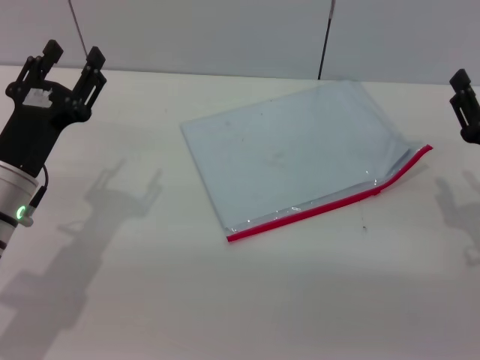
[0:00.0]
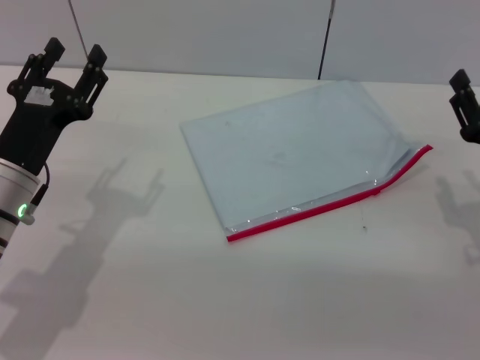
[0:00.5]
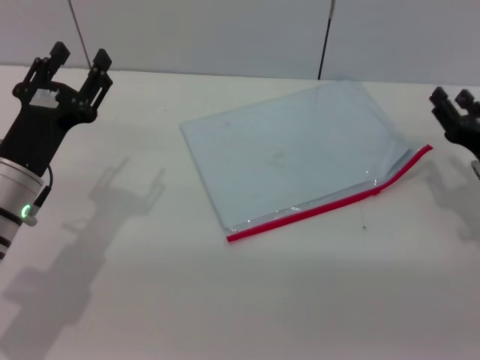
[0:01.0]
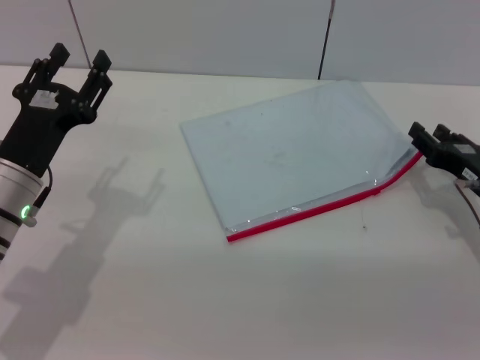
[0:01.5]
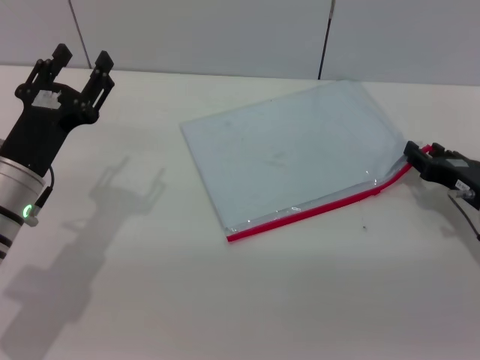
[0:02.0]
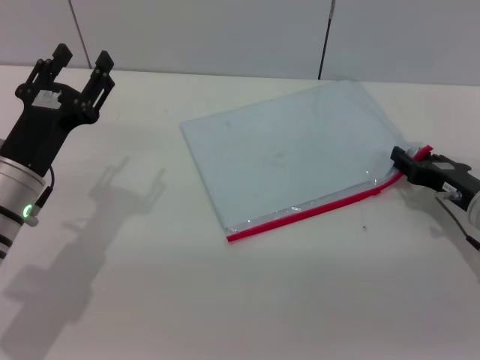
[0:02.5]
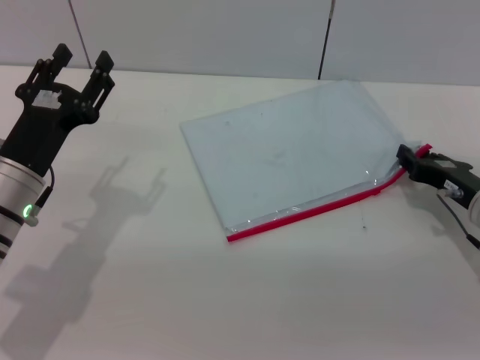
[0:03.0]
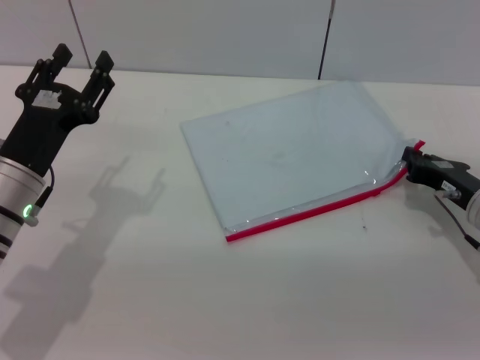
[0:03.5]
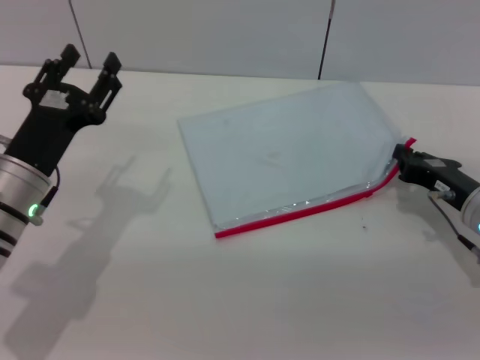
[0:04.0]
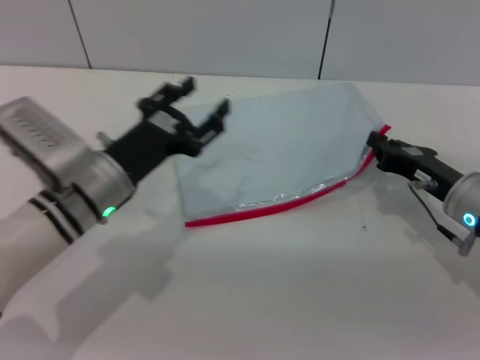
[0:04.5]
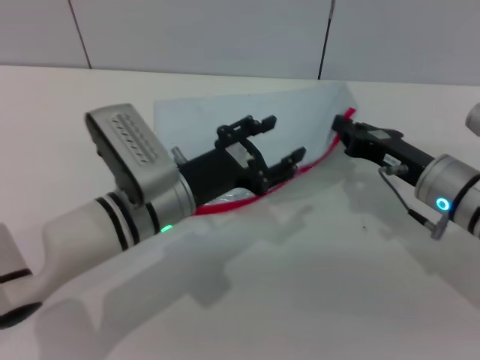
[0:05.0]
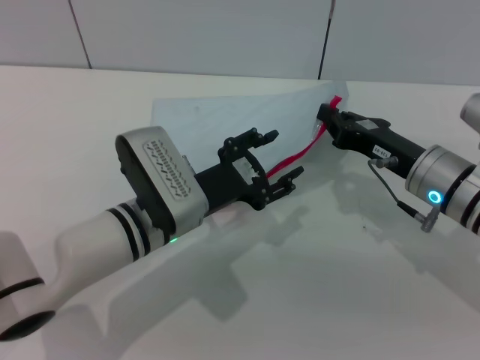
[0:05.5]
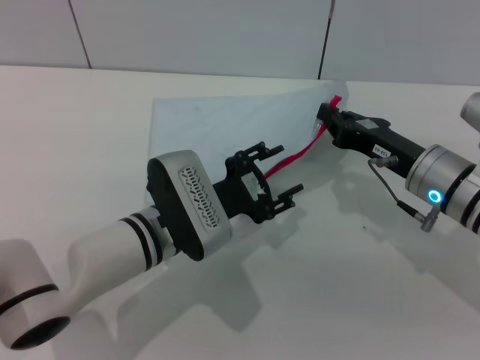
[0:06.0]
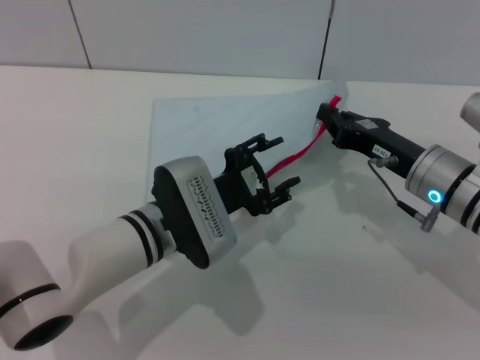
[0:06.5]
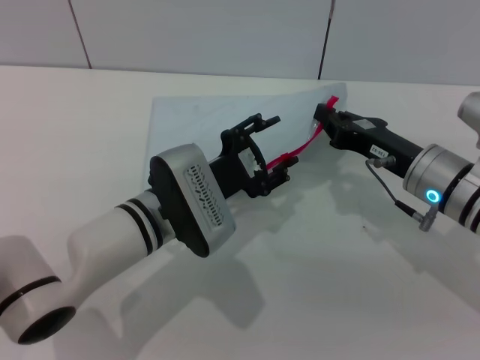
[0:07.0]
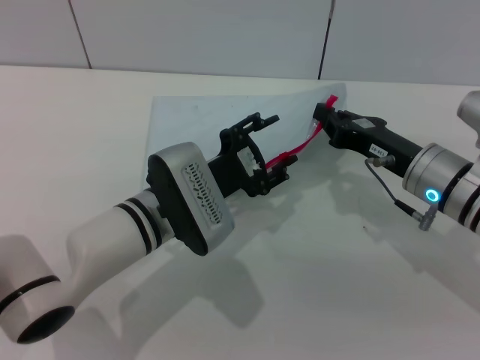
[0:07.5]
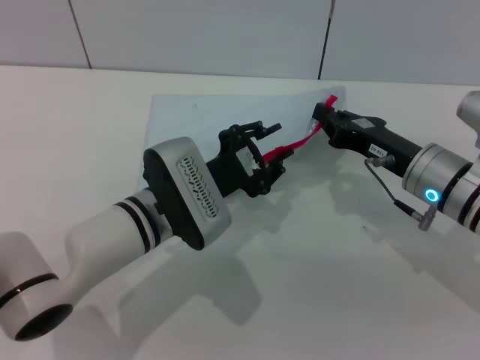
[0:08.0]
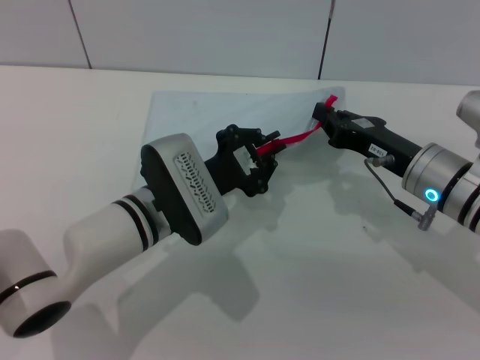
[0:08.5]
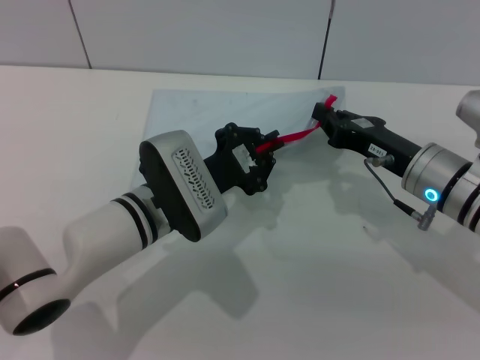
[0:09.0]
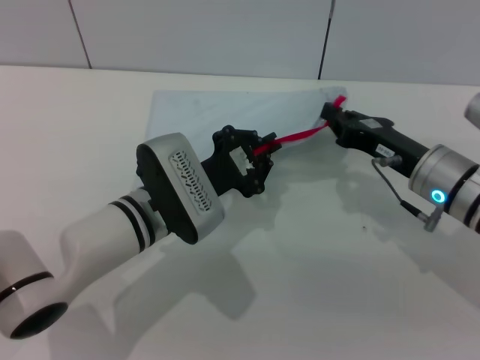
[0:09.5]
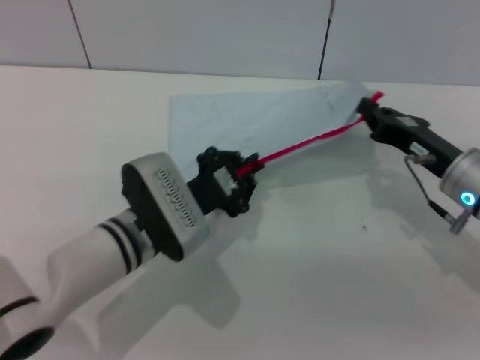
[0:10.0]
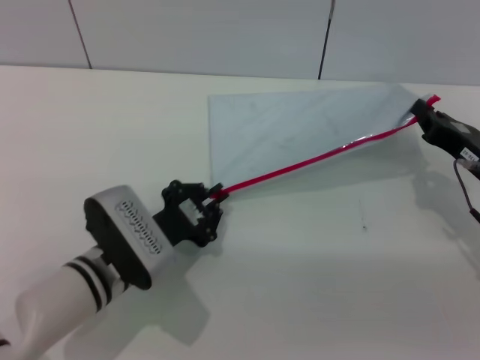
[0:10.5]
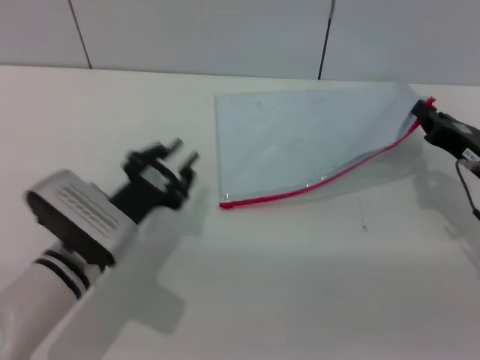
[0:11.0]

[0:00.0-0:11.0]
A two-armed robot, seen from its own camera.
Step, 0:00.0 to 0:05.5: Pick up the transparent plastic bag with the right gripper.
Step, 0:06.0 to 0:10.5: Pulling up the zipper on the transparent plastic bag with the left gripper to close it.
0:00.0 to 0:02.0: The right gripper moves roughly 5 cm.
0:02.0 to 0:03.5: The right gripper closes its fingers.
0:03.5 to 0:05.5: The left gripper moves to the right, roughly 15 cm; the right gripper travels to the left by approximately 5 cm.
0:07.5 to 0:09.0: The left gripper closes up.
0:09.0 to 0:11.0: The right gripper heads to the right, covering some 10 cm. The left gripper goes roughly 5 cm to the left.

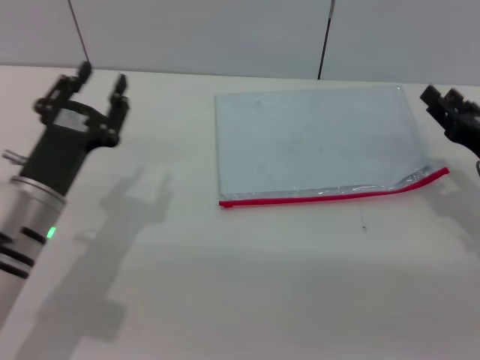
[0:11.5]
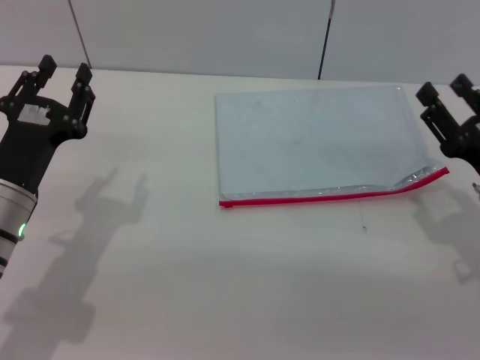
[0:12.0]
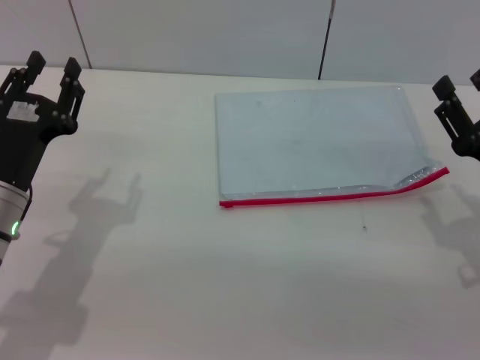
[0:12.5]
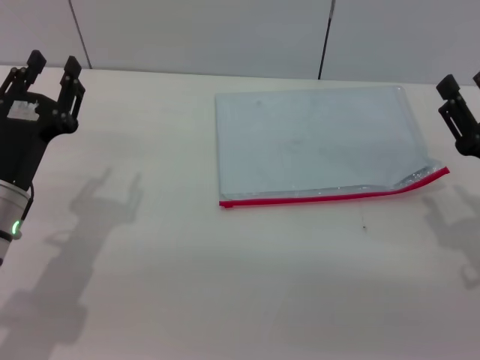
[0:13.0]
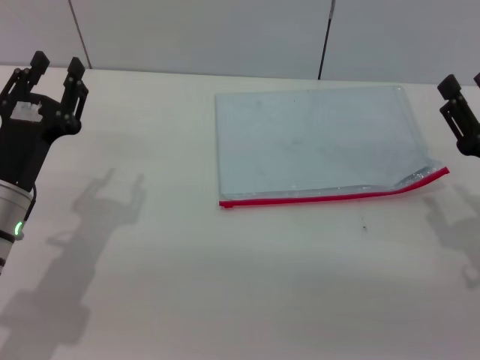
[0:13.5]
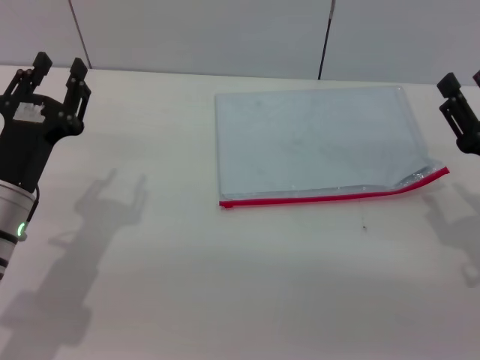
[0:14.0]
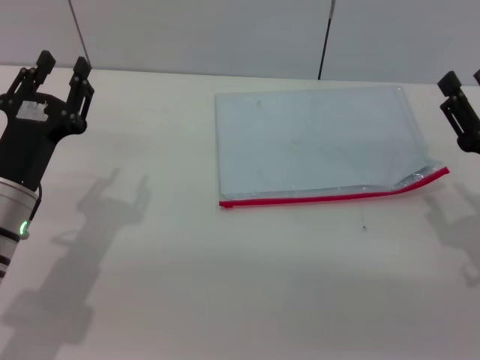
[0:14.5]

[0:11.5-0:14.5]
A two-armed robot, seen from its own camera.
0:11.5 to 0:13.0: The right gripper moves approximately 5 cm.
0:13.0 to 0:14.5: Neither gripper changes place.

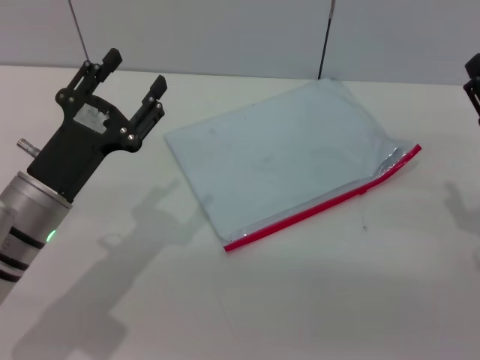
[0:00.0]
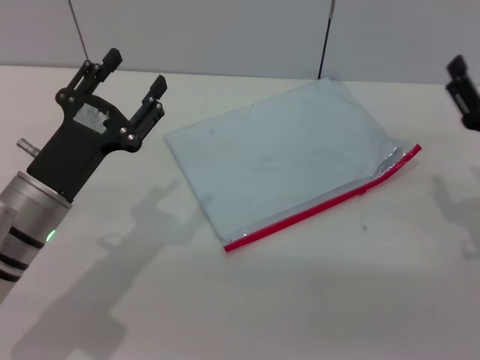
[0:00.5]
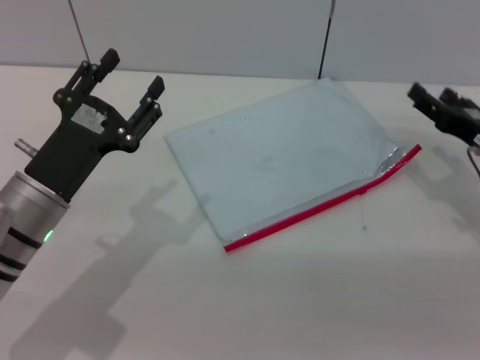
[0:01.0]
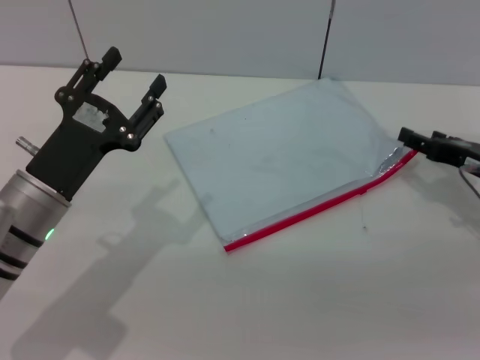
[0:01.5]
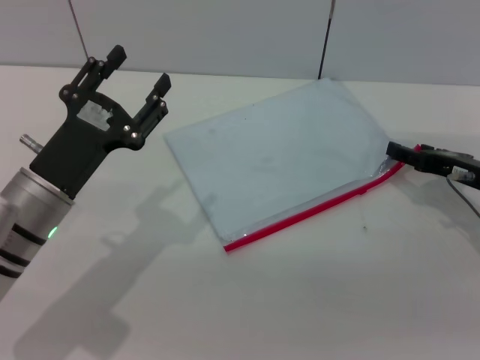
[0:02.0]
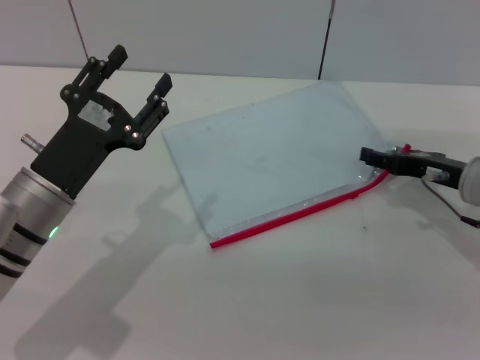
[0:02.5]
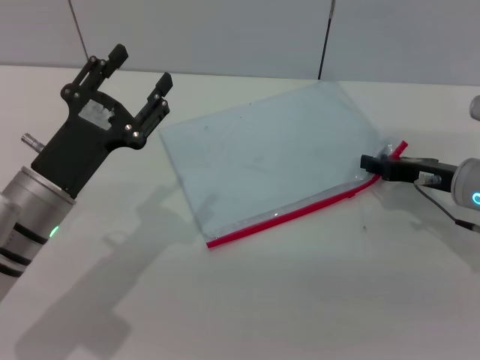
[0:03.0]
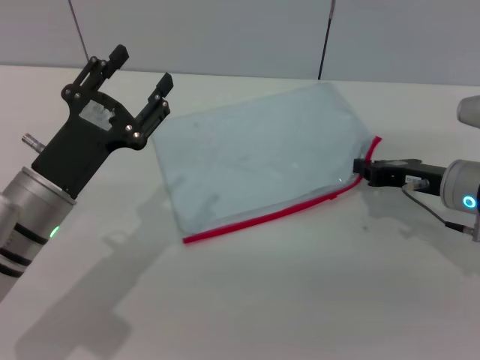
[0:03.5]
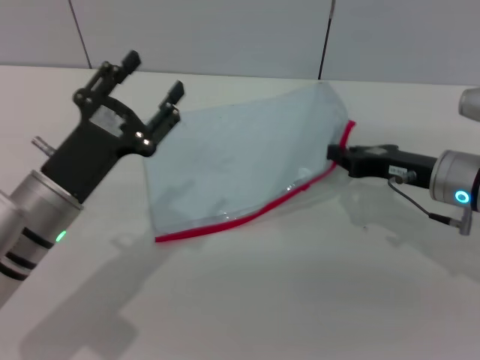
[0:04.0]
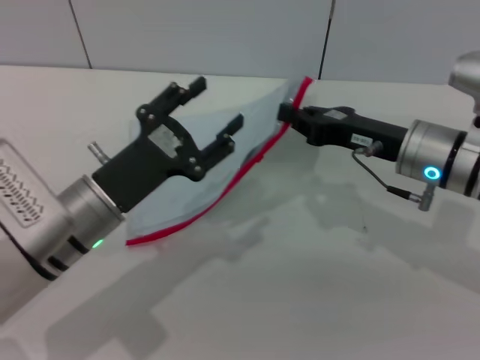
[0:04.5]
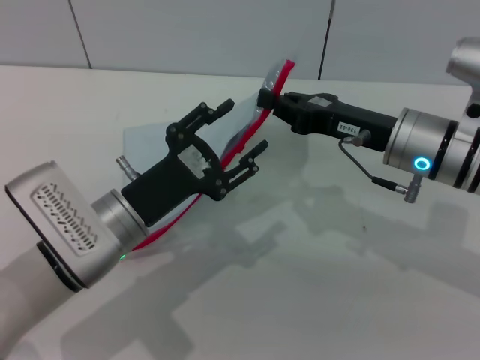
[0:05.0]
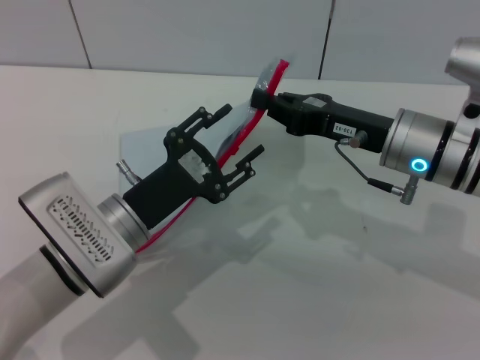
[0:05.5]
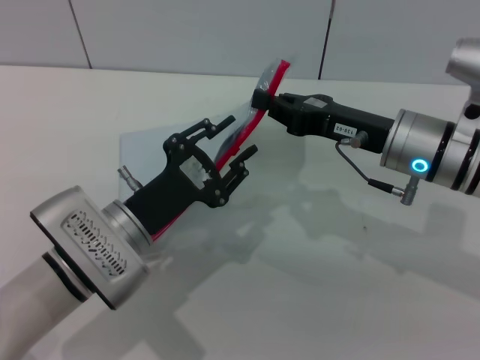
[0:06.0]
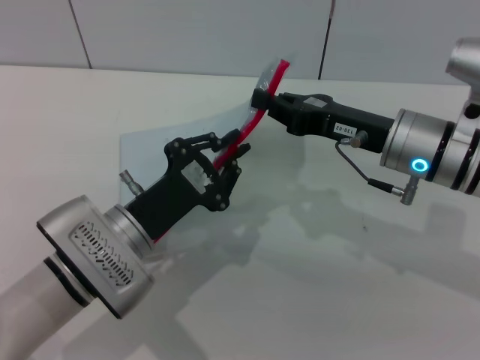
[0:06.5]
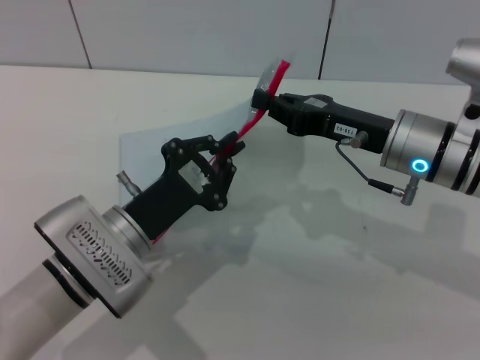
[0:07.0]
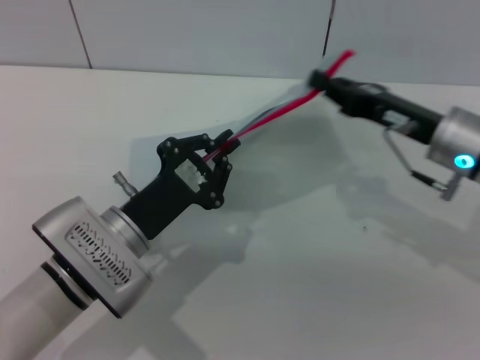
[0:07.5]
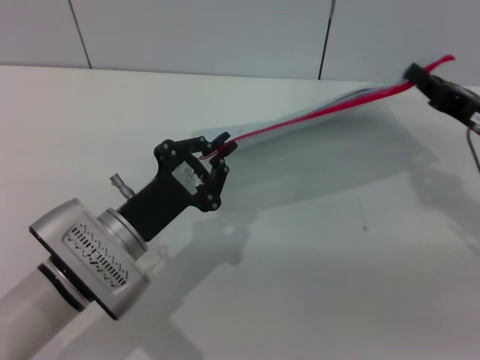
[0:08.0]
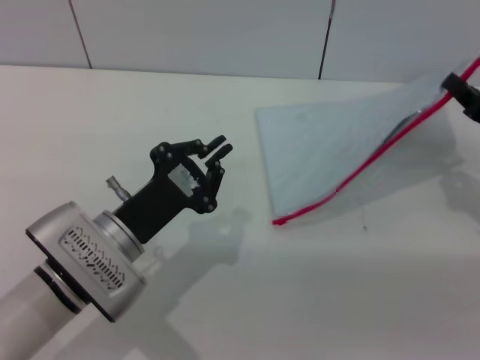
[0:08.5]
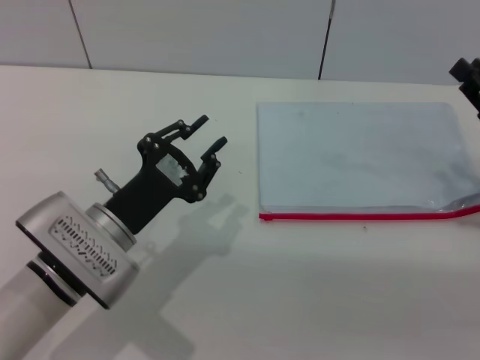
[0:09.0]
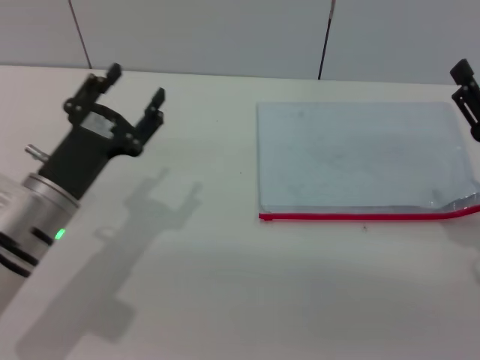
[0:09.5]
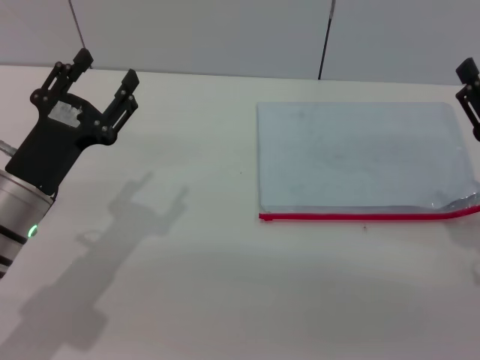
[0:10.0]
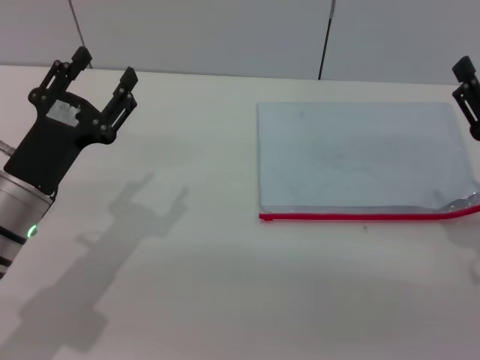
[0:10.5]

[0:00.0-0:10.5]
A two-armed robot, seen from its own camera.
Step, 0:00.0 to 0:04.0: Pick up the transparent plastic bag with the right gripper.
Step, 0:04.5 to 0:08.5: Pulling up the zipper on the transparent plastic bag with the left gripper to close it.
Step, 0:09.0 to 0:09.5: Place the transparent plastic bag.
0:00.0 to 0:02.0: The right gripper moves forward, about 10 cm.
0:02.0 to 0:04.0: The right gripper is displaced to the left by about 5 cm, and closes its fingers.
0:04.0 to 0:06.5: The right gripper moves to the left, about 5 cm. The left gripper moves to the right, approximately 5 cm, and closes.
0:06.5 to 0:08.5: The right gripper is displaced to the right by approximately 15 cm.
0:08.5 to 0:10.5: The left gripper goes some 5 cm to the left, and opens; the right gripper goes some 5 cm backward, and opens up.
